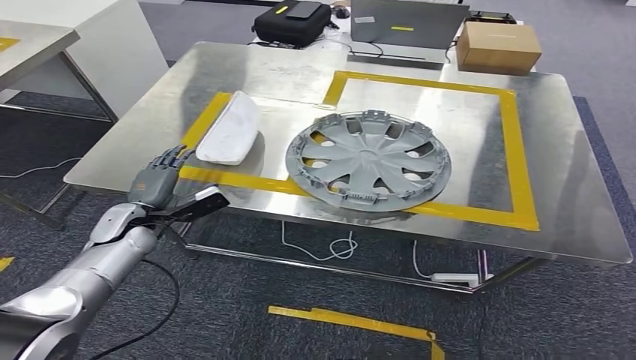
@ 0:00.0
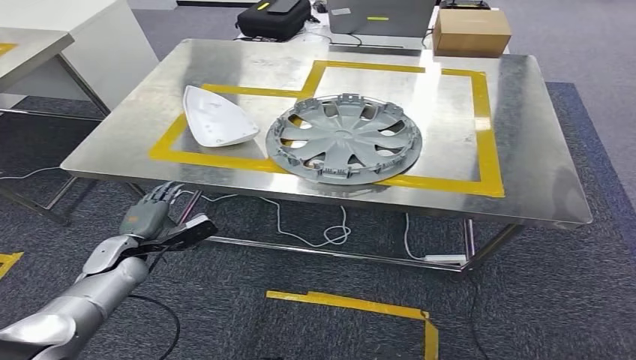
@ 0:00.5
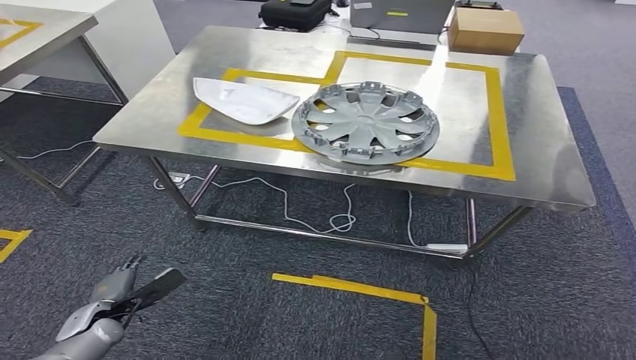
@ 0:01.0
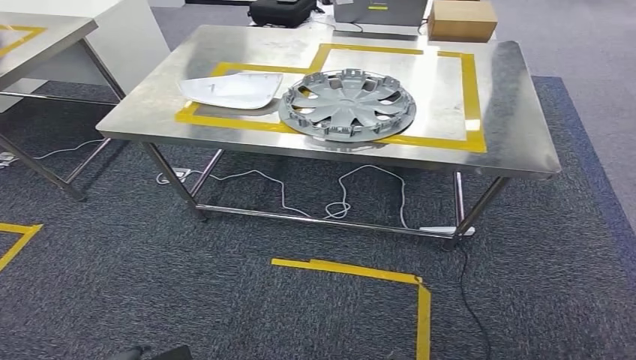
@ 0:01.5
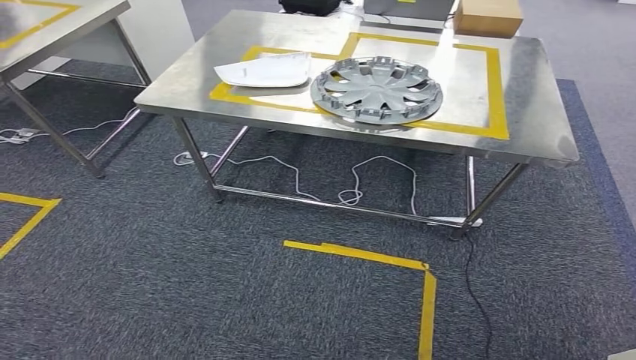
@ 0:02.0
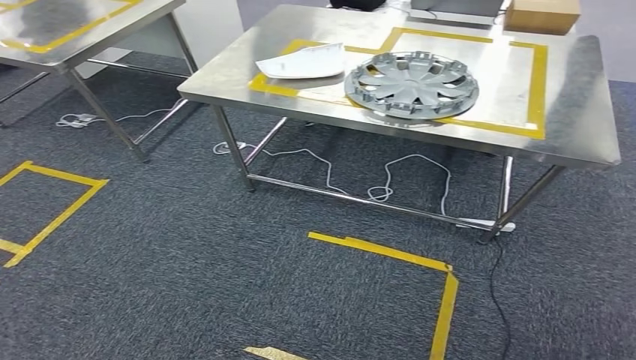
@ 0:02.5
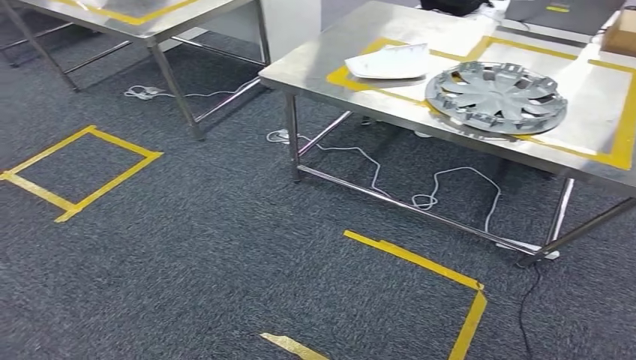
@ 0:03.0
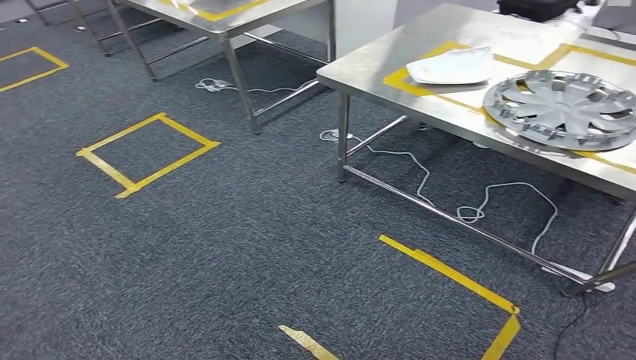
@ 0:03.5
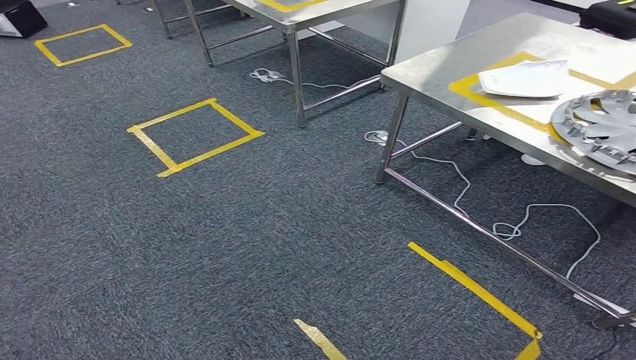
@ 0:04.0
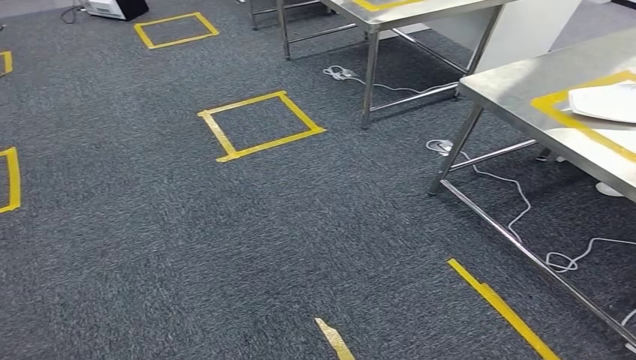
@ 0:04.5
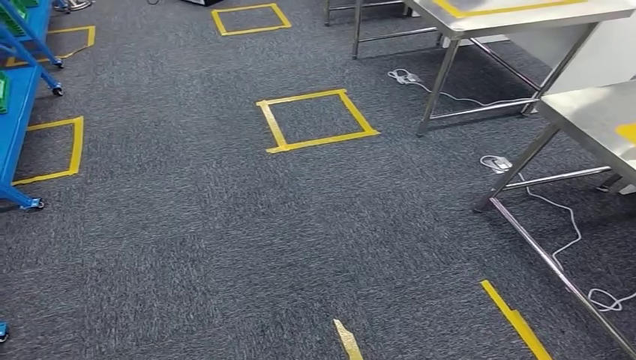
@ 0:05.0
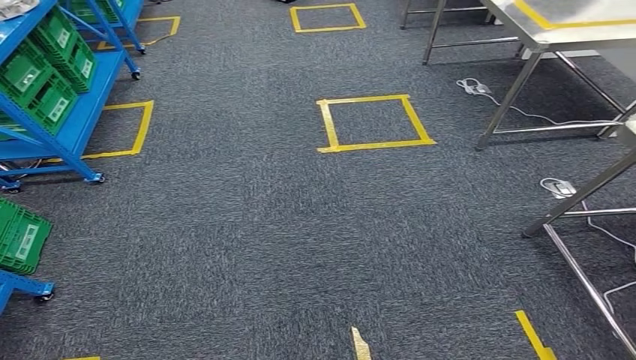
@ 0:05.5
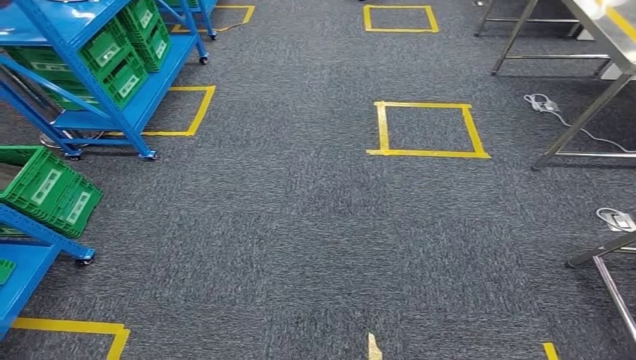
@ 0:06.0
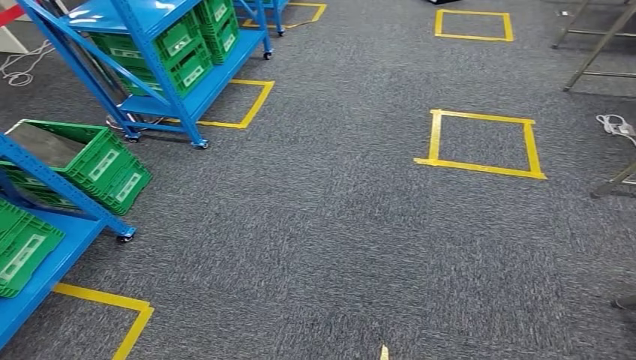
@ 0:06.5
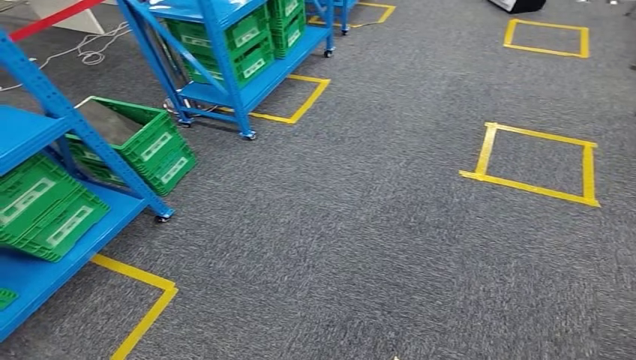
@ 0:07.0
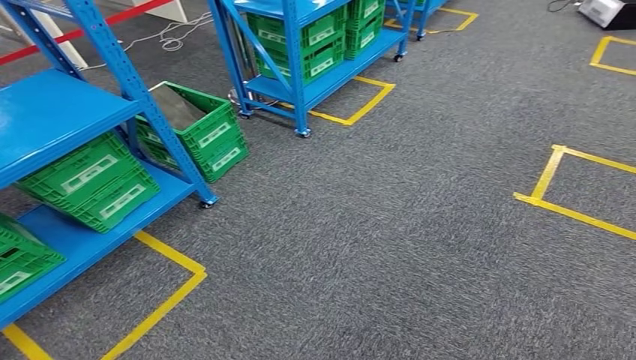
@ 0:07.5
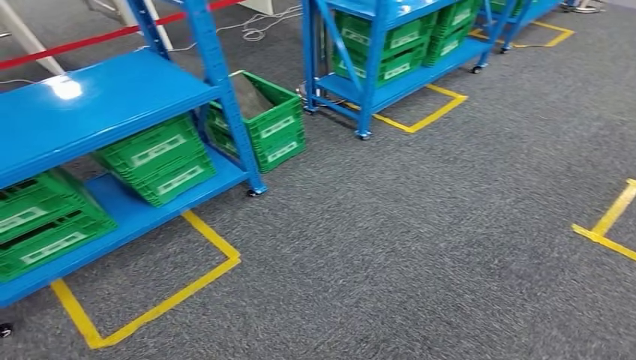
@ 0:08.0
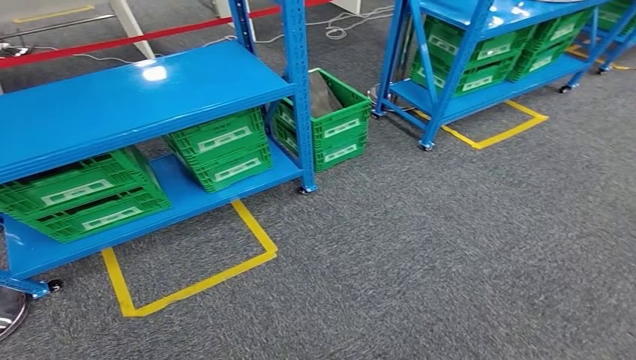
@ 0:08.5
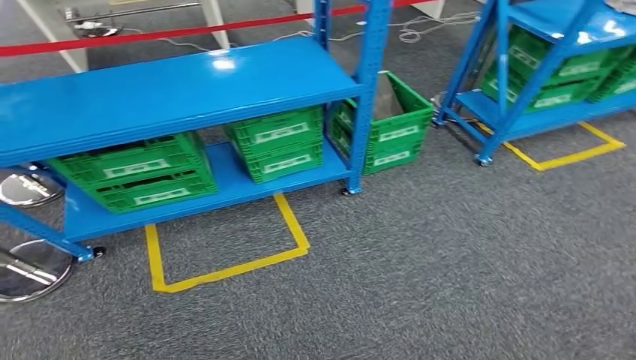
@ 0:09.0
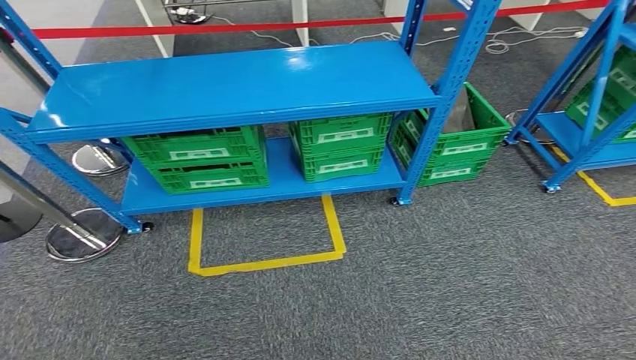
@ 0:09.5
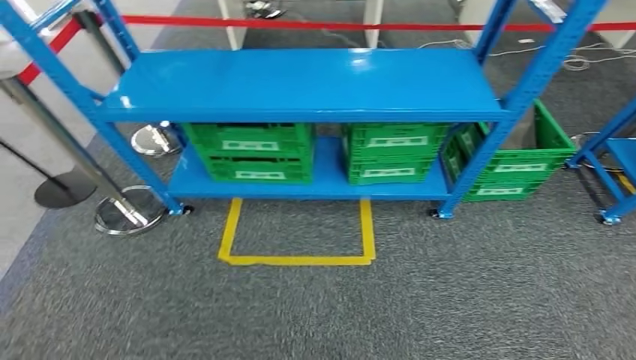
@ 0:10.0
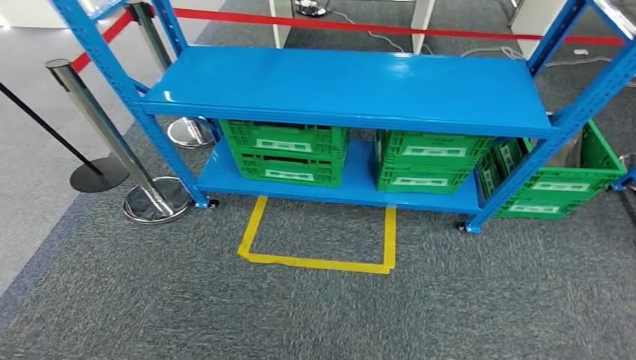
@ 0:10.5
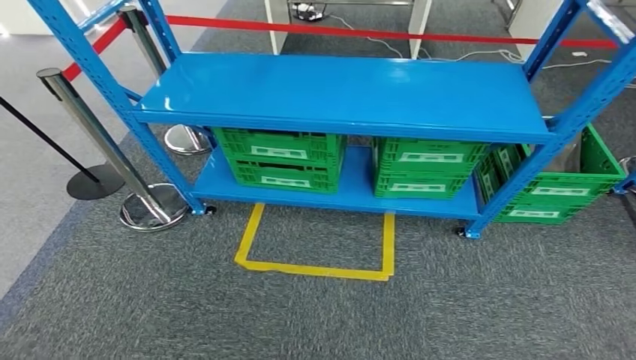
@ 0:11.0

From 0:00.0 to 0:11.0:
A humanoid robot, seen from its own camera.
Step, from 0:00.0 to 0:11.0: Move to the initial position at the workbench.
